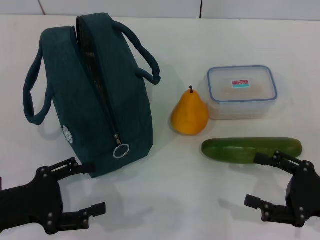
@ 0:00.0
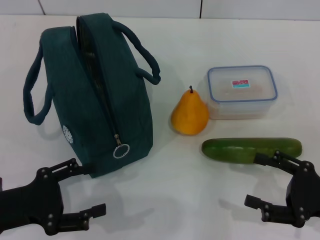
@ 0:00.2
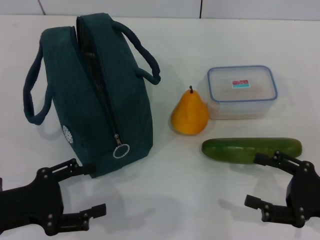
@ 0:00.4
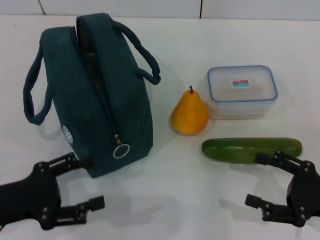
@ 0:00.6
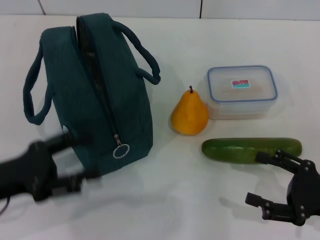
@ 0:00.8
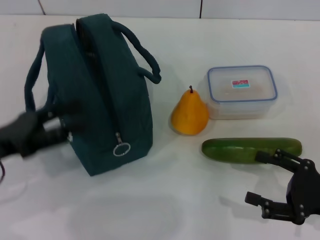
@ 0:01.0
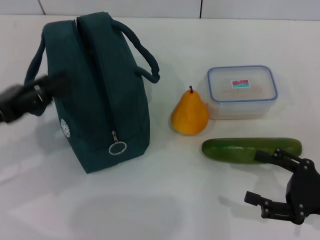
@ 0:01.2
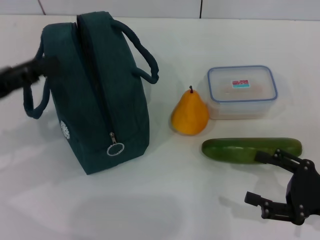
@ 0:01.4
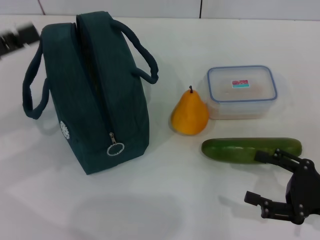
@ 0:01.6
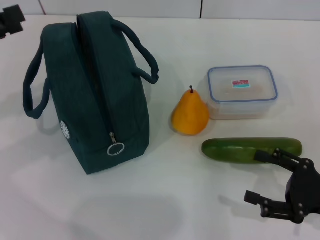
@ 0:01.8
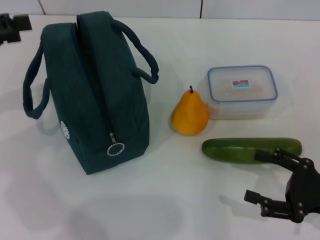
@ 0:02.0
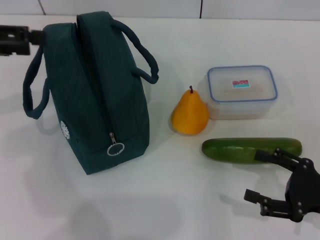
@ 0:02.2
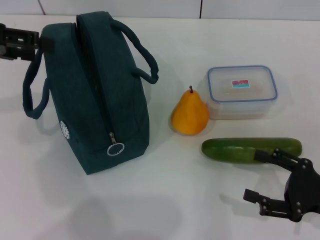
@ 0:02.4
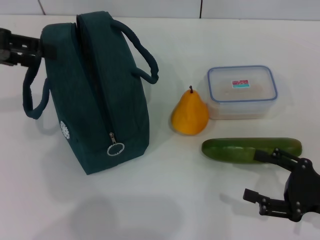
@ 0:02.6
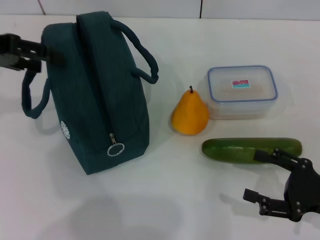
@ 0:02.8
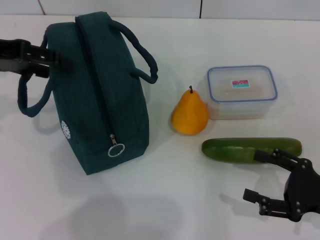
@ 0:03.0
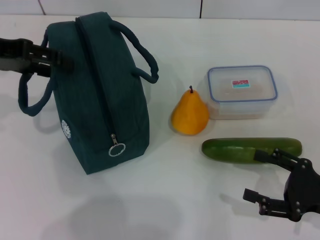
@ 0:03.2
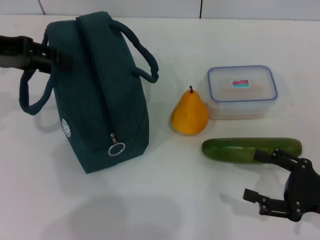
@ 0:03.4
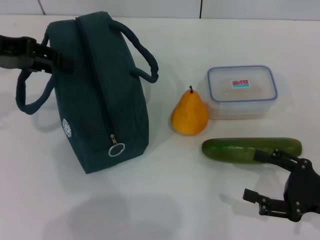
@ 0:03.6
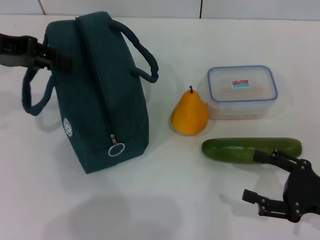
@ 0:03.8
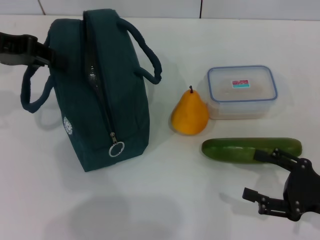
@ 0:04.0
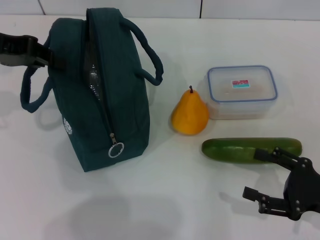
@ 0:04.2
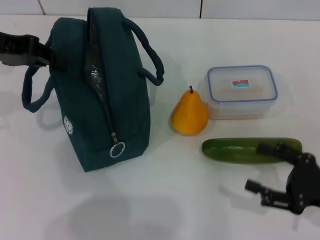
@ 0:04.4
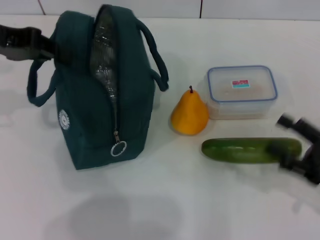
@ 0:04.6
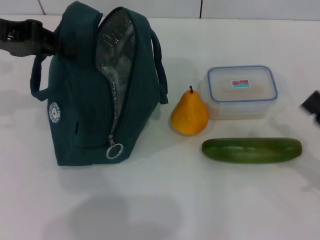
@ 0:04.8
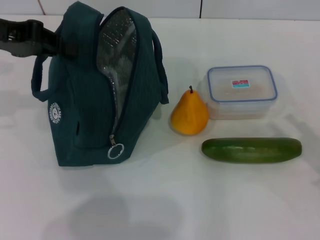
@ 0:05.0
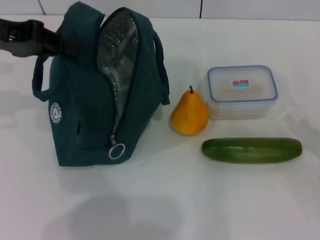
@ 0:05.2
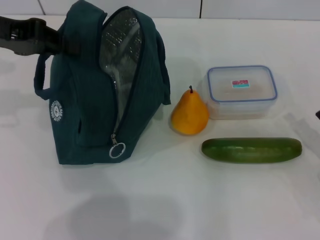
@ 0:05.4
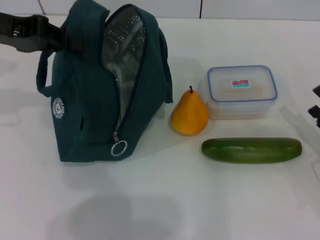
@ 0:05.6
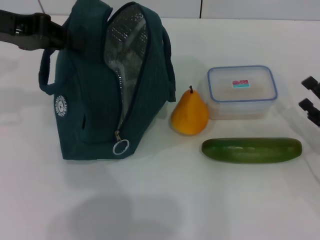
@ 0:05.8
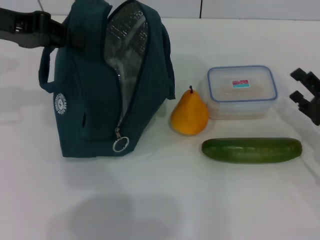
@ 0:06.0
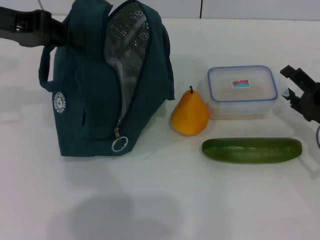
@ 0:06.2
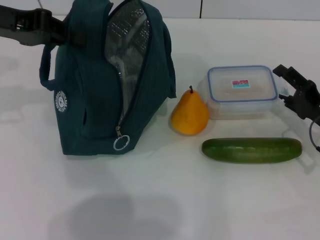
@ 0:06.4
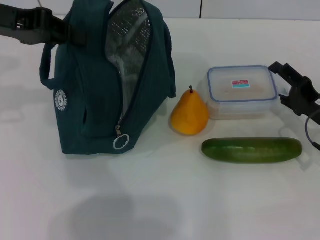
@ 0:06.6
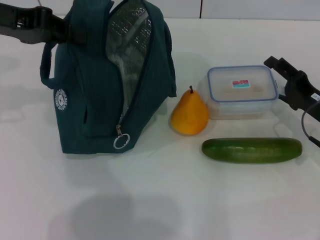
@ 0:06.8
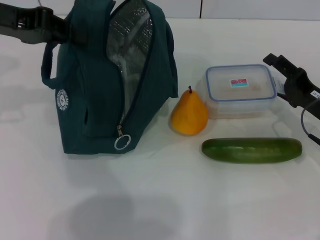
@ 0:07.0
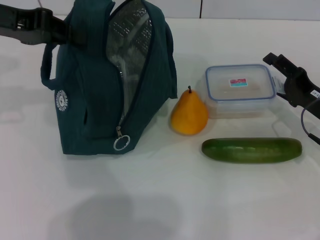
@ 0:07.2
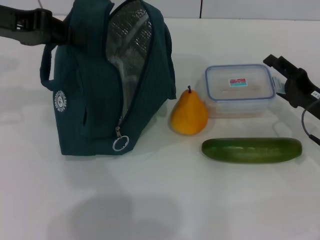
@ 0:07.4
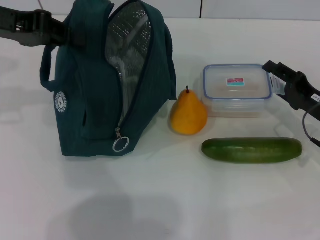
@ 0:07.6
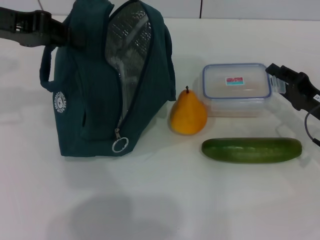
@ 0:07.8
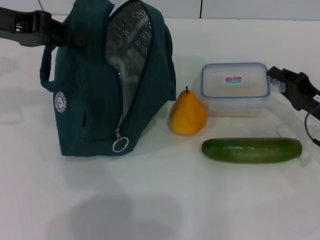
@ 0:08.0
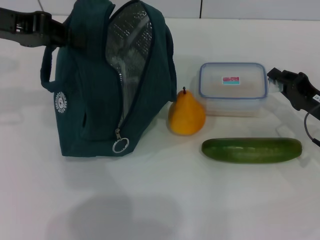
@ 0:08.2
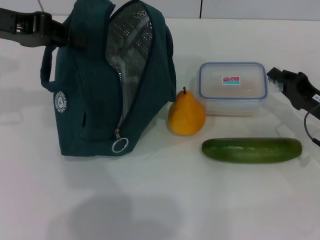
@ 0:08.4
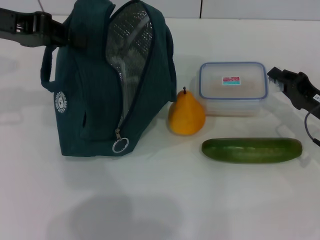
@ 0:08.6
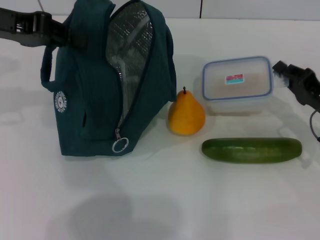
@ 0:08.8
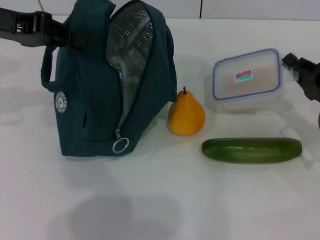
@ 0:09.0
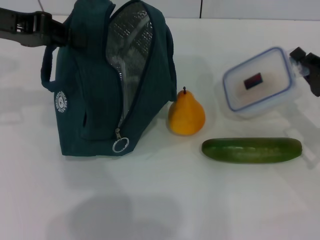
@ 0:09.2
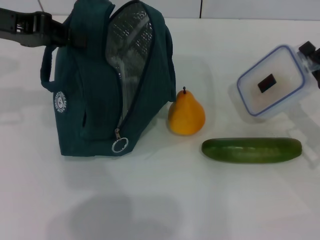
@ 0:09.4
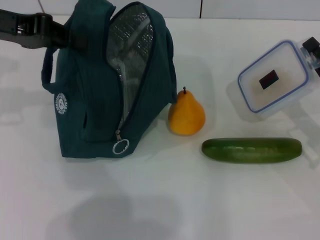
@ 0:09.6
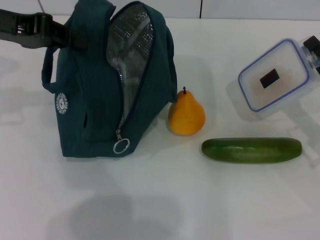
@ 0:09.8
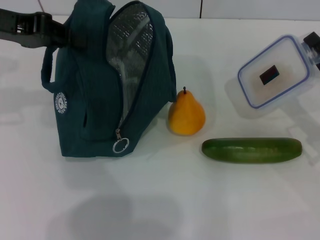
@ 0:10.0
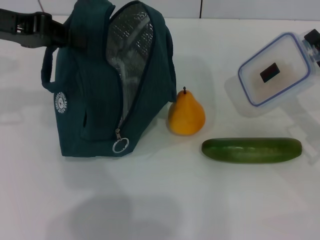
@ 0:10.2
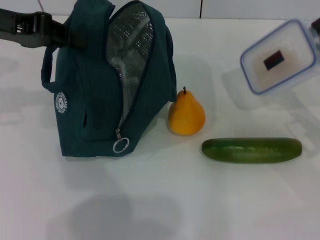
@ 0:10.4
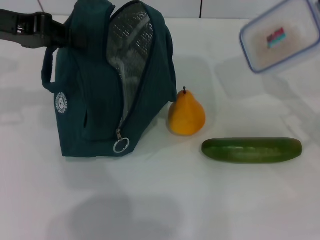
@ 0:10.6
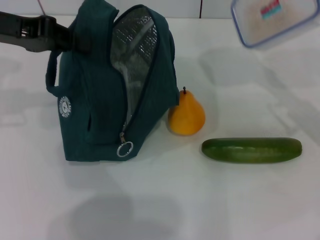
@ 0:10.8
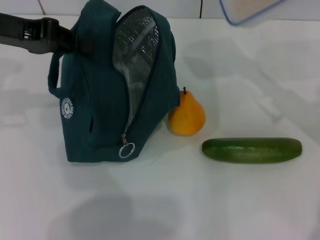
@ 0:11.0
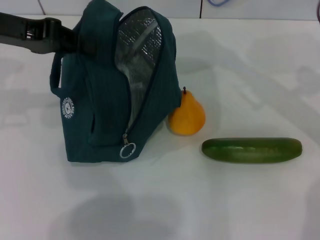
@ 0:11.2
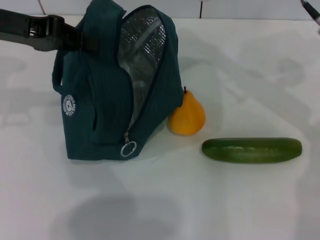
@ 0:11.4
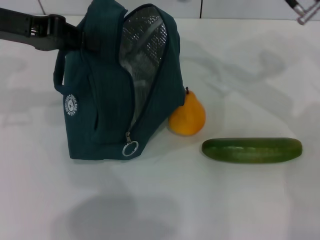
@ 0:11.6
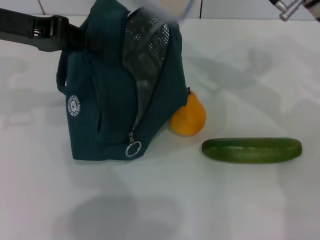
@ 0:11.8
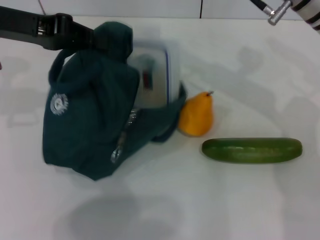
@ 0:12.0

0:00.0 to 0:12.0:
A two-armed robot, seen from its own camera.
Step, 0:00.0 to 0:04.2: Hold the lunch bag with your left hand.
Step, 0:04.4 to 0:08.4: Pick up the lunch box with your right hand.
0:00.0 to 0:01.6: The left gripper travels upward and forward by approximately 15 cm.
0:01.6 to 0:03.0: The left gripper shifts approximately 10 cm forward and upward.
0:03.0 to 0:04.4: The left gripper closes its fingers.
0:04.4 to 0:06.0: The right gripper travels forward by about 5 cm.
0:06.0 to 0:07.6: The grippers move only a little.
0:07.6 to 0:09.0: The right gripper closes its fingers.
0:09.0 to 0:10.4: The grippers move only a little.
0:10.4 to 0:12.0: The right gripper moves to the left, upward and forward, some 25 cm.

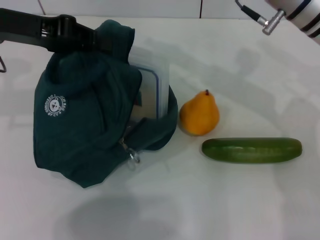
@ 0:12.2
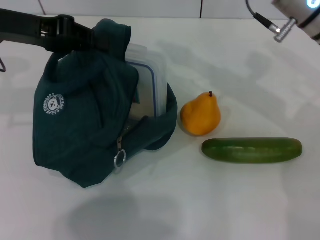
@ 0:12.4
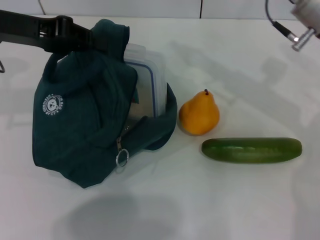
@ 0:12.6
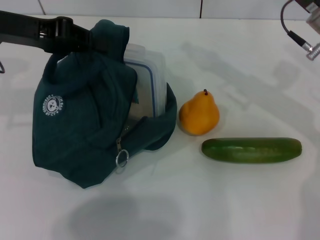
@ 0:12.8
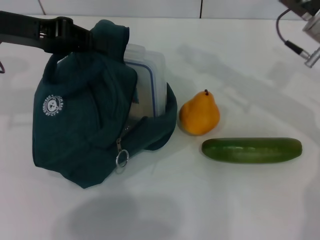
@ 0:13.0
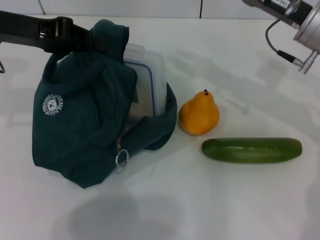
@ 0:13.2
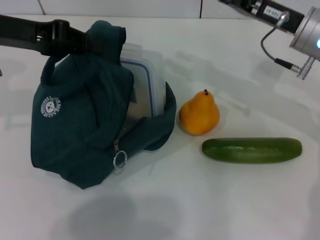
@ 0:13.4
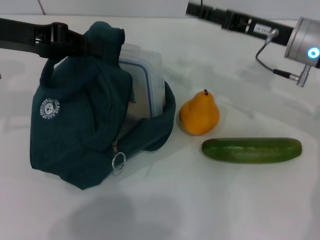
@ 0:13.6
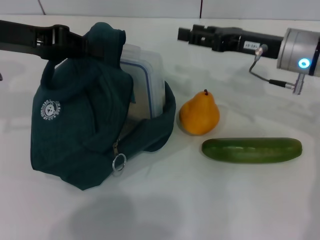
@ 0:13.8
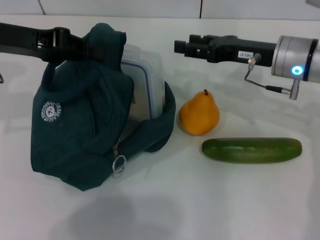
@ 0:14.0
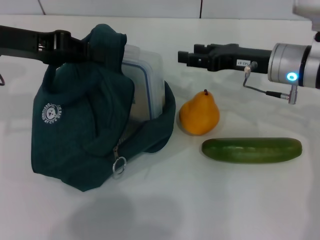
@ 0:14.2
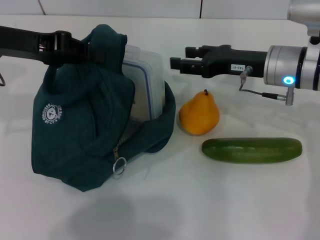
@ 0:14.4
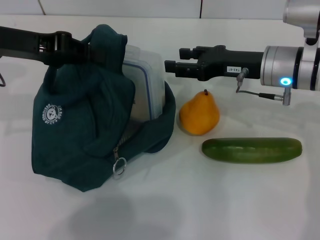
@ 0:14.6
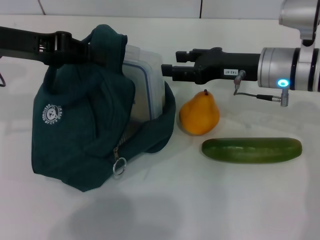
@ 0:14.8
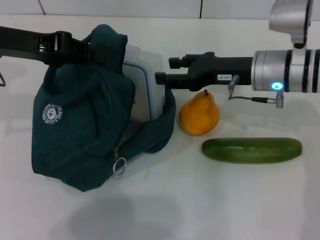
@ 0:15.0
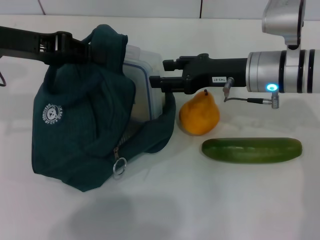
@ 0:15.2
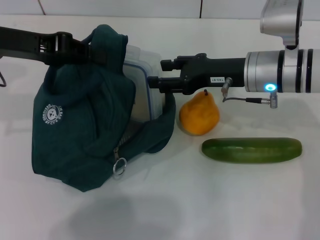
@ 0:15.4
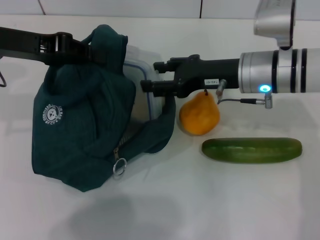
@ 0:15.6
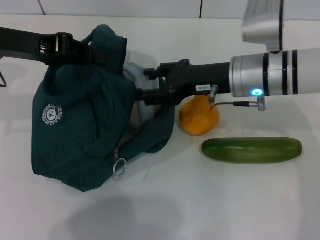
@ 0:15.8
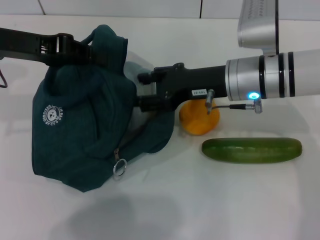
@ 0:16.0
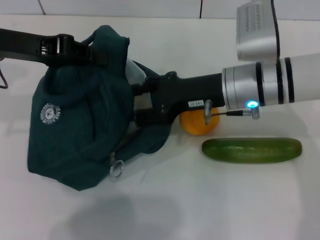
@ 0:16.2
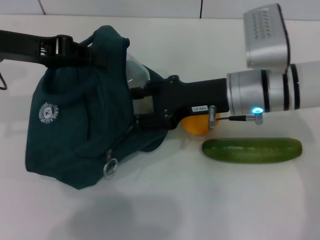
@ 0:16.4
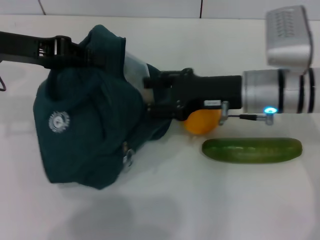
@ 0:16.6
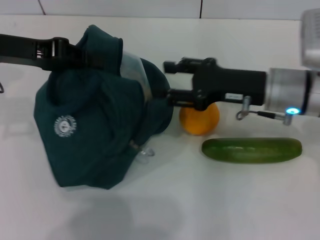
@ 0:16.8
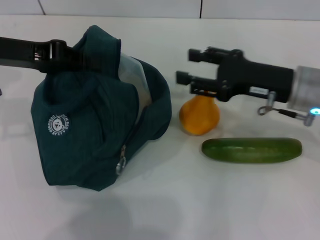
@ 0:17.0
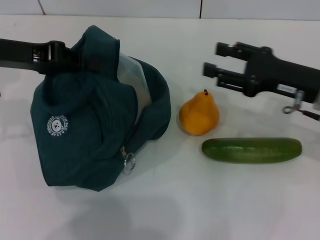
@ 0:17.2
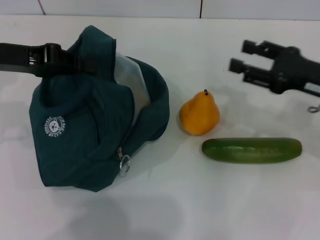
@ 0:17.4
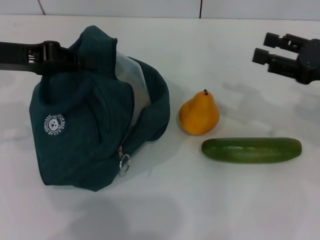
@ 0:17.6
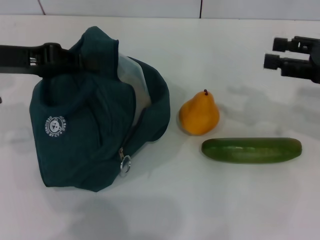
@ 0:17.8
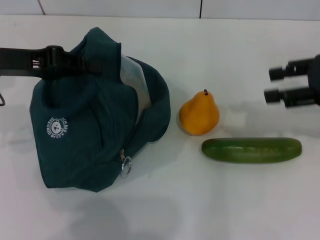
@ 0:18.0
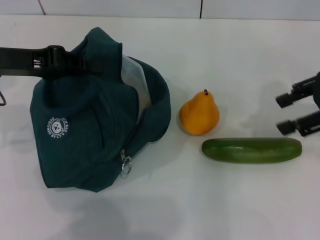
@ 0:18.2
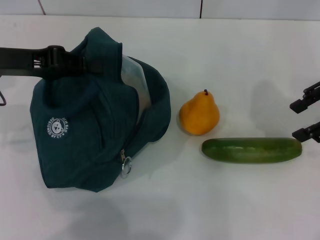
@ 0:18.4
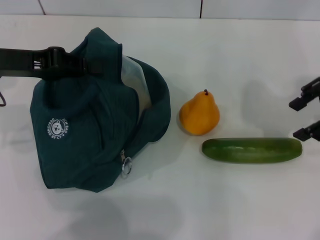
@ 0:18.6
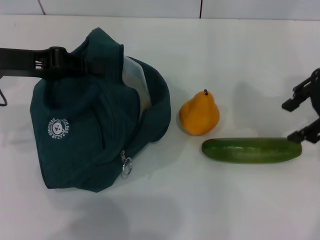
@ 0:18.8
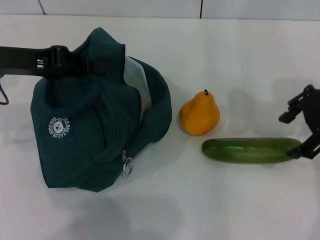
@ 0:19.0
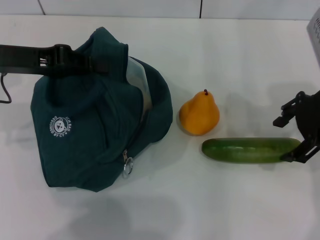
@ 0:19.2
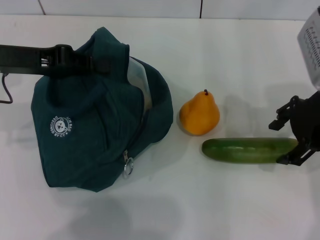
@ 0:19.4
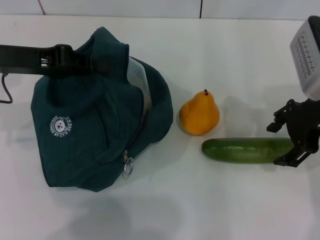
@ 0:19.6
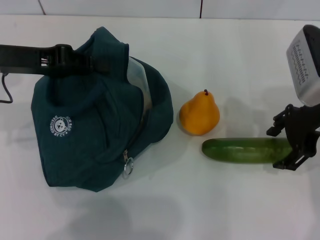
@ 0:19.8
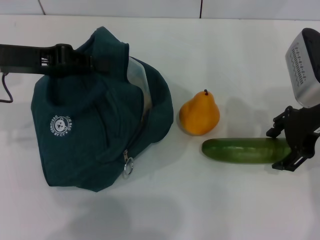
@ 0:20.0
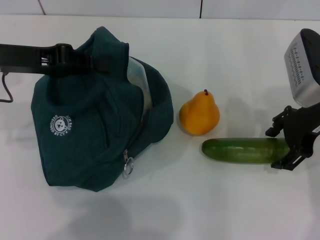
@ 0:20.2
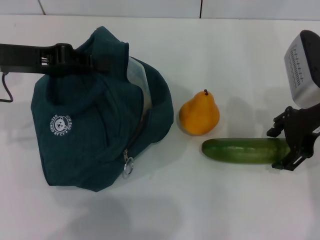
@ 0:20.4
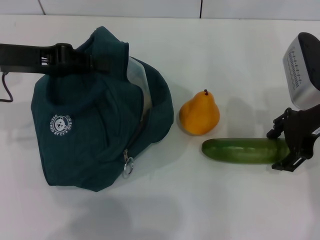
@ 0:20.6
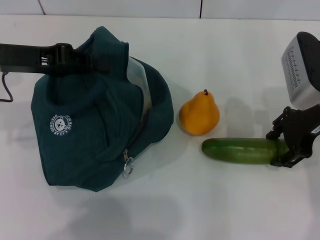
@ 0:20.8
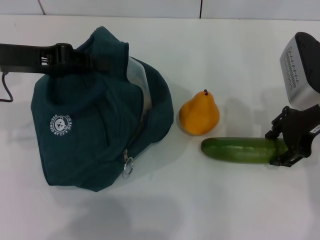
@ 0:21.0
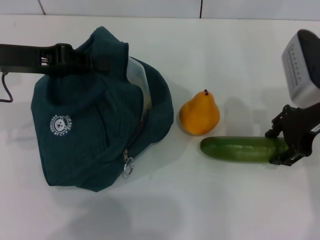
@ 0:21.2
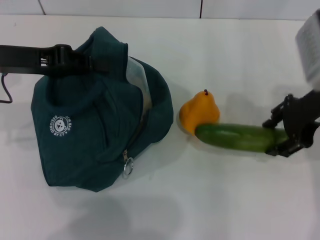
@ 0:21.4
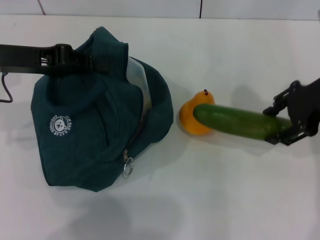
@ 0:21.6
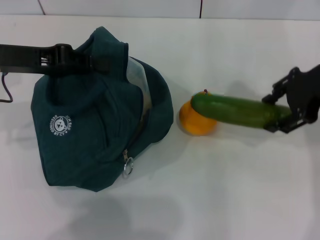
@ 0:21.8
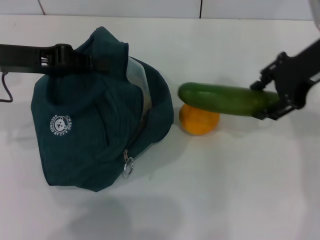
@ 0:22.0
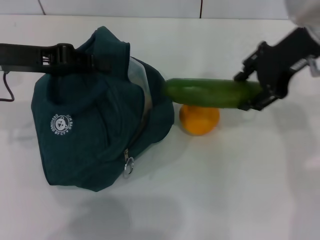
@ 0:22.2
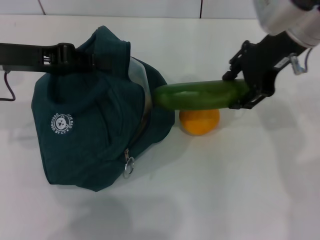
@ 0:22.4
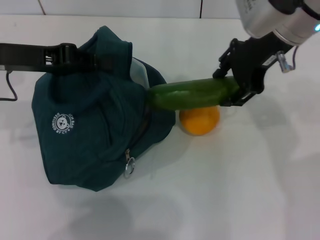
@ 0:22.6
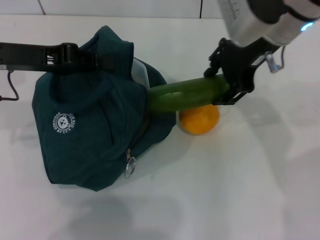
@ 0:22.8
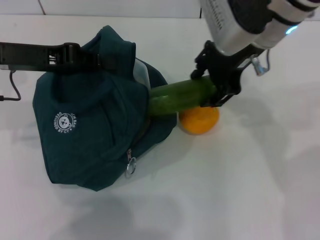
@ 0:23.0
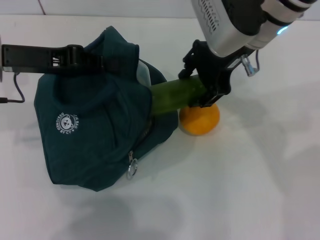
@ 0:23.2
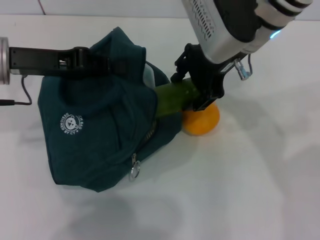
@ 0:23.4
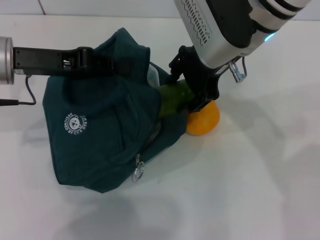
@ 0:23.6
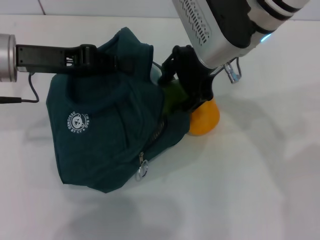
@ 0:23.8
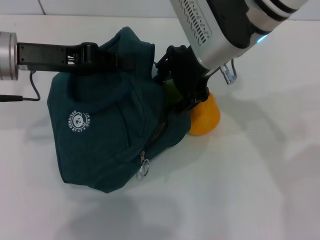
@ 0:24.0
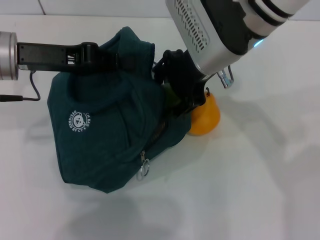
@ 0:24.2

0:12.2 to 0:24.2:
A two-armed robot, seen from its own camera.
Step, 0:12.2 to 0:17.2: Place the lunch box into the lunch bag with your right hand.
Step, 0:17.4 to 0:21.0: Pick up the cucumber with your right hand.
0:12.2 to 0:13.8: The right gripper heads downward, covering approximately 5 cm, and opens its fingers.
0:15.2 to 0:16.6: The grippers make only small movements.
0:16.6 to 0:18.2: The right gripper shifts some 20 cm to the right and upward.
0:18.2 to 0:19.8: The right gripper moves to the left and downward, about 10 cm.
0:19.8 to 0:21.2: The grippers stay close to where they were, moving slightly.
0:21.2 to 0:22.6: The right gripper moves upward and to the left, some 10 cm.
0:22.6 to 0:24.2: The right gripper shifts approximately 5 cm to the left.
